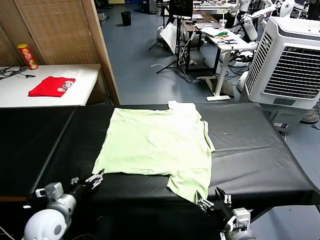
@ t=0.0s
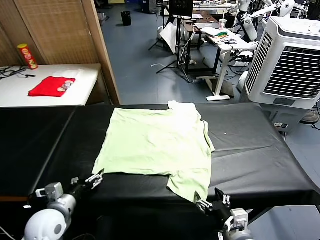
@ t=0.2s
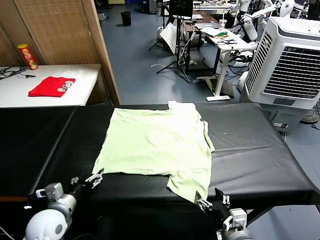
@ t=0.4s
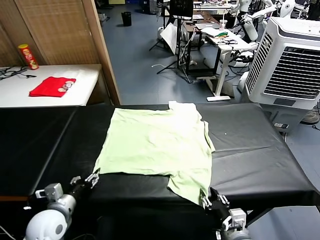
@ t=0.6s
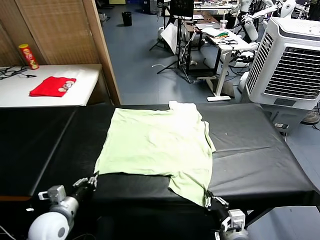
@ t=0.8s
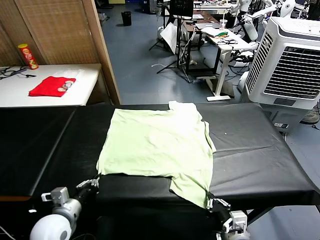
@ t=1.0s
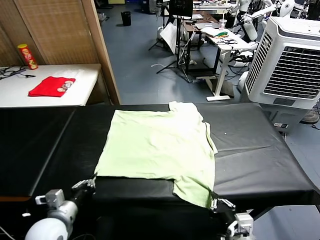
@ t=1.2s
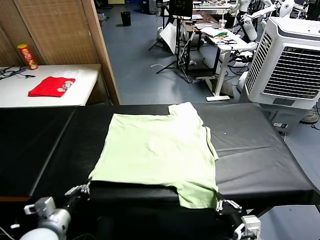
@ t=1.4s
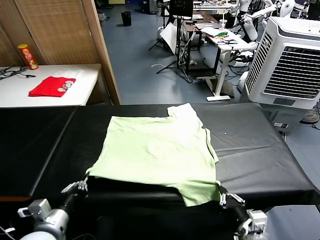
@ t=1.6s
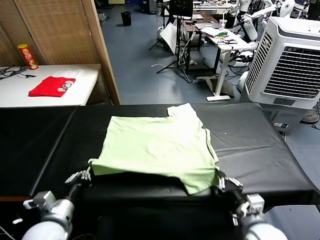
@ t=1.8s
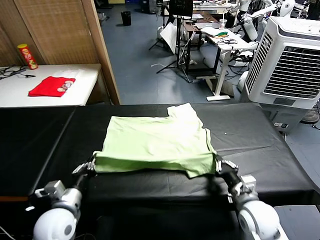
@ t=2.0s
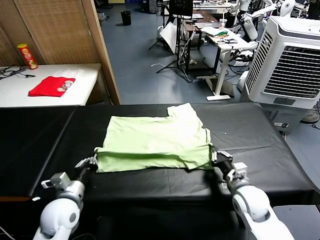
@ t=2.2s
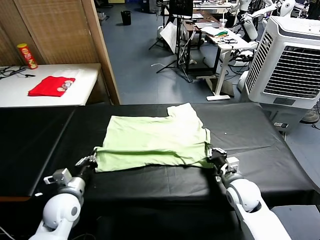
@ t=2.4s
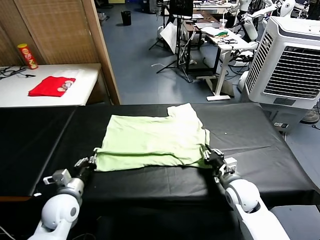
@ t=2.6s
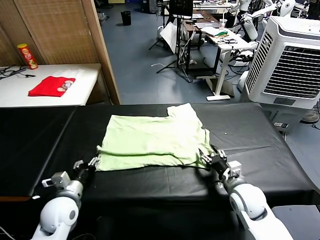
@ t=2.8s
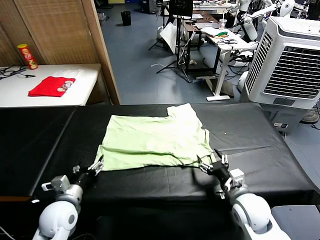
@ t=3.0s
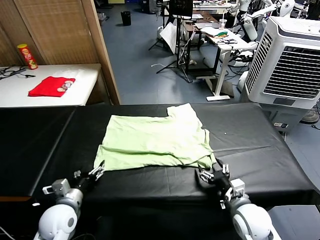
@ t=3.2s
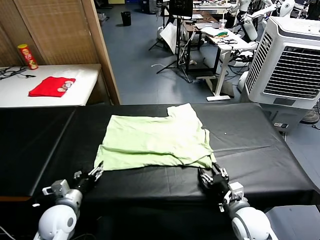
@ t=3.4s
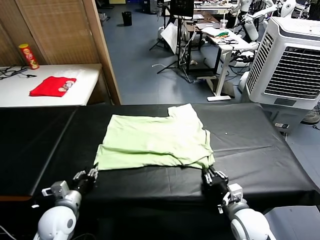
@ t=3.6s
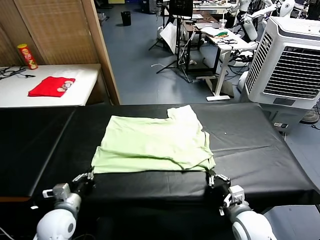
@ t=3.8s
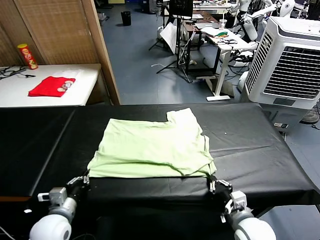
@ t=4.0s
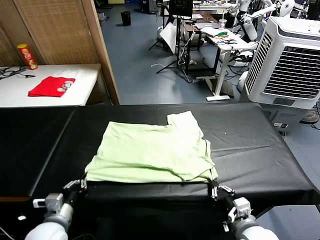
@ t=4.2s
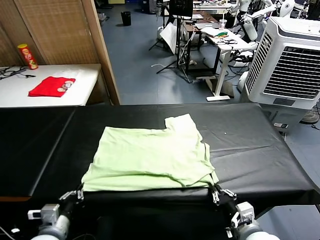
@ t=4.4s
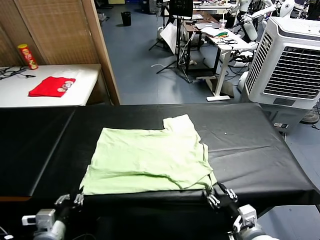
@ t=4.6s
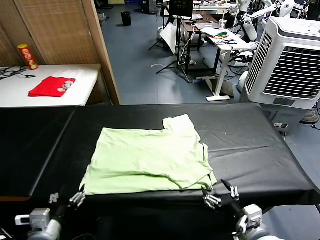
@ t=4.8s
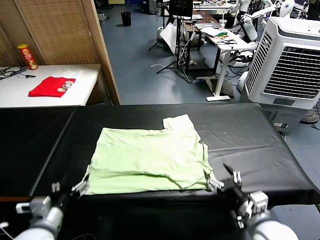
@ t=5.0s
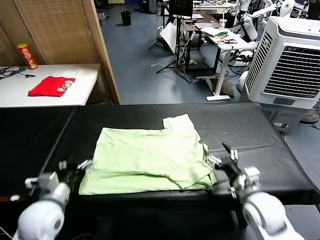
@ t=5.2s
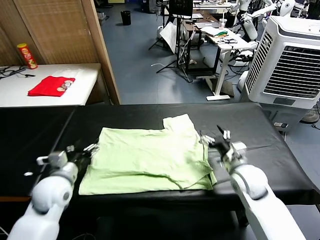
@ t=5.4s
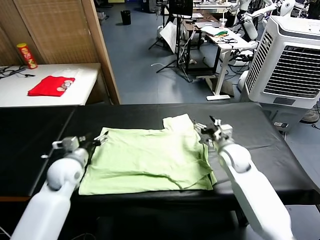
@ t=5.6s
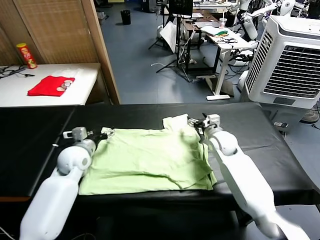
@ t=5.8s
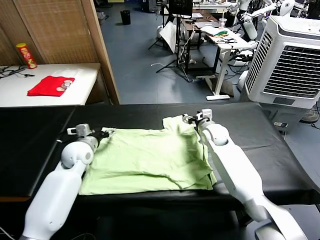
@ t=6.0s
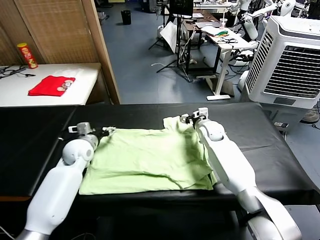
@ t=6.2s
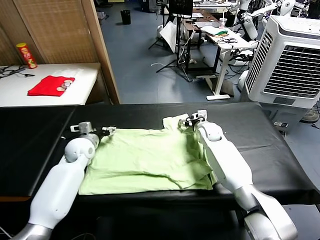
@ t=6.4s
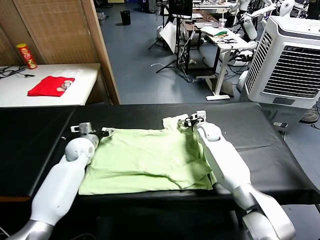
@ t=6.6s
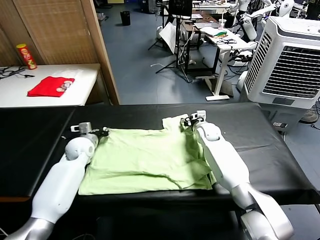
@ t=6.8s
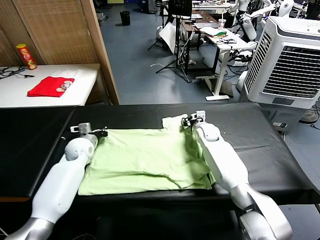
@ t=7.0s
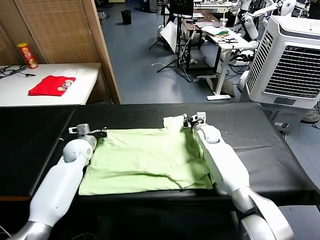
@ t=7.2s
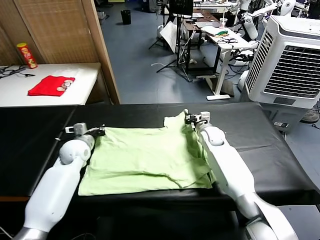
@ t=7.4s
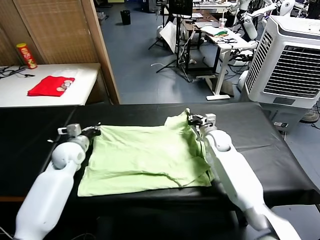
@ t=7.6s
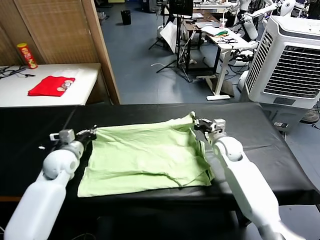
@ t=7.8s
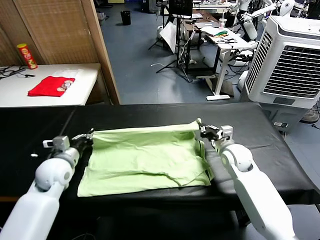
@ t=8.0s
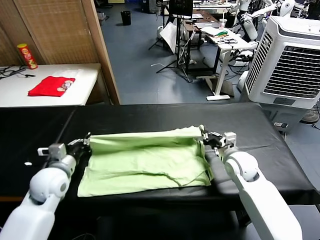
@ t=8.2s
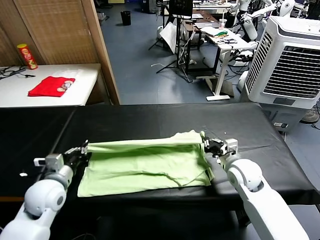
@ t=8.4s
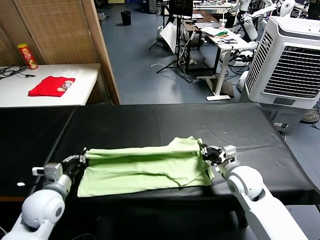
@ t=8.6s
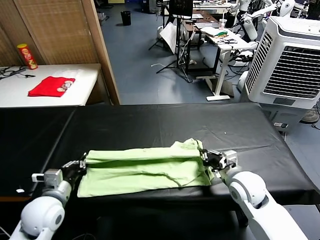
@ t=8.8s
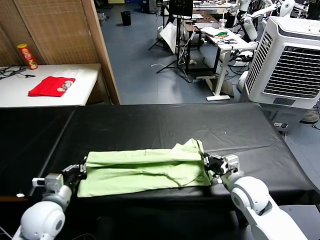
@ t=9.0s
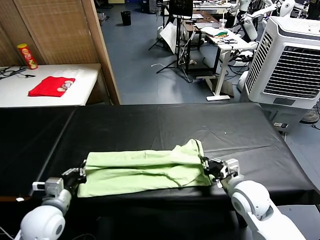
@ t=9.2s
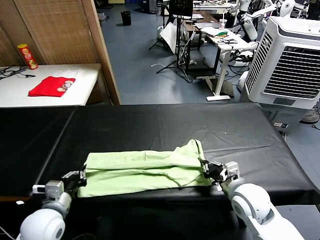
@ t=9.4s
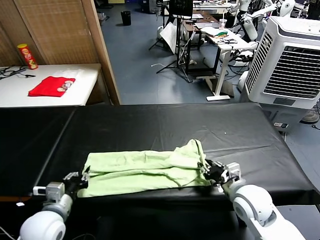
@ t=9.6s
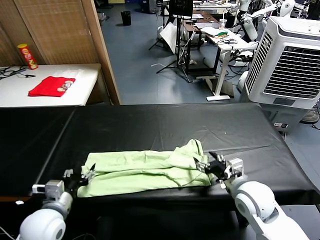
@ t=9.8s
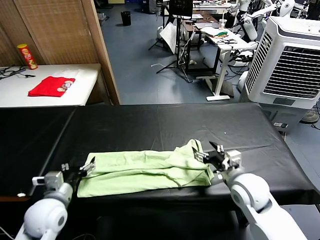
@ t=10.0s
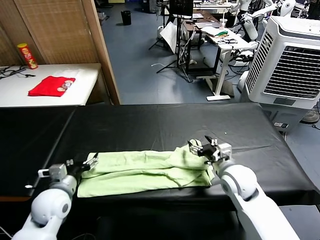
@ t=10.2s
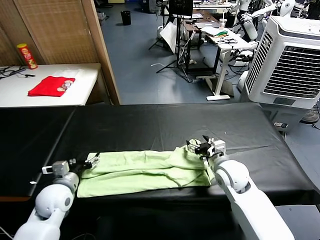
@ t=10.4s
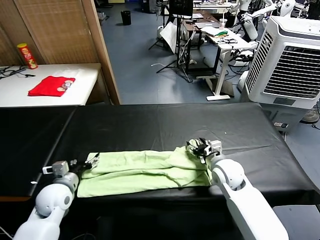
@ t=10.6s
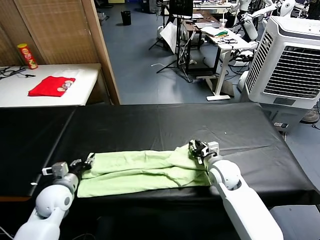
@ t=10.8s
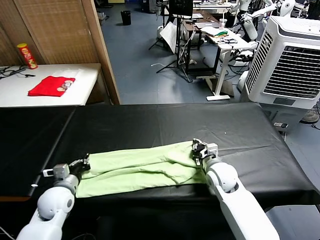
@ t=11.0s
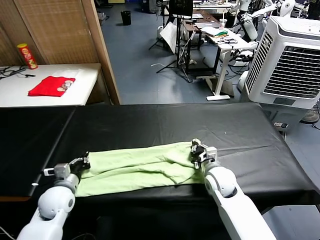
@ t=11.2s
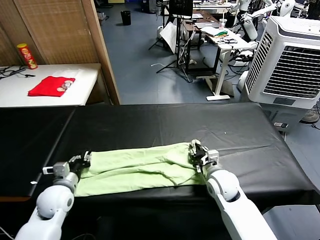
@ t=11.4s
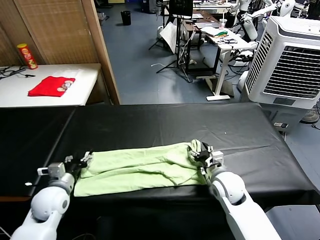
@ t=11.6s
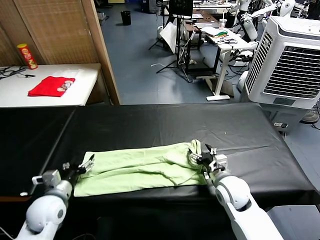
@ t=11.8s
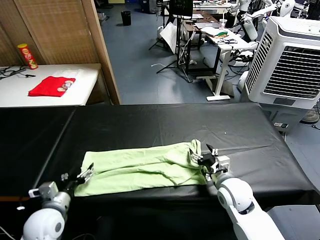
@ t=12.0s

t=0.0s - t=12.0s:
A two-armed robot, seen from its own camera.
Task of the whole recording: fold and organize the clothes.
Step, t=0.0s - t=1.0s: use both grippers simultaneously to clamp the lower edge of the clothing fabric.
Step, t=1.2s - t=2.8s: use both grippers to drag the lower edge of the fabric forward and fold it over the upper edge.
Step, t=3.0s - t=4.6s: Drag the clothes downward with both gripper.
Step, t=5.0s - t=7.0s: use both grippers simultaneously to clamp the upper edge of the clothing fabric.
Step, t=7.2s - t=9.8s: use both grippers to drag the upper edge of the fabric backward and fold it over the lower edge.
t=1.6s - t=3.0s: The left gripper heads forward and downward, covering some 10 cm, and opens. The right gripper is displaced forward by roughly 5 cm, and opens.
t=3.0s - t=4.4s: The two grippers go about 10 cm backward. The right gripper closes up, while the left gripper closes up.
t=4.4s - t=6.0s: Both grippers move forward, about 35 cm. The right gripper opens its fingers, while the left gripper opens its fingers.
t=6.0s - t=7.6s: The left gripper closes up, while the right gripper heads backward, covering about 5 cm, and closes.
t=7.6s - t=9.0s: Both grippers move backward, approximately 20 cm.
t=9.0s - t=10.4s: Both grippers move forward, about 5 cm. The right gripper opens up. The left gripper opens up.
t=10.4s - t=12.0s: Both grippers travel together backward, approximately 5 cm. The left gripper closes and opens again; the right gripper closes and opens again.

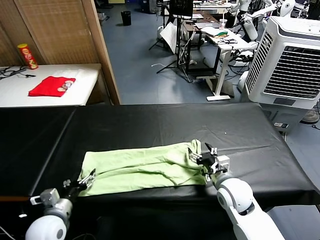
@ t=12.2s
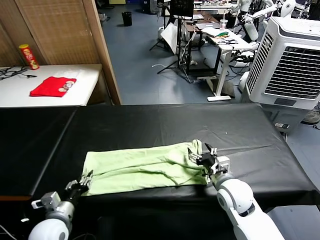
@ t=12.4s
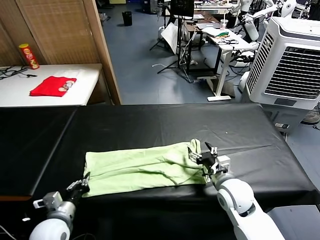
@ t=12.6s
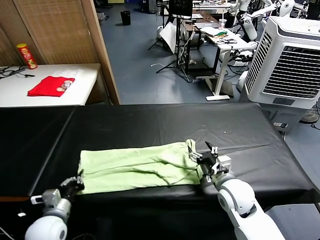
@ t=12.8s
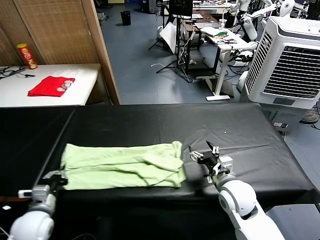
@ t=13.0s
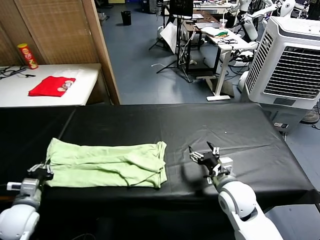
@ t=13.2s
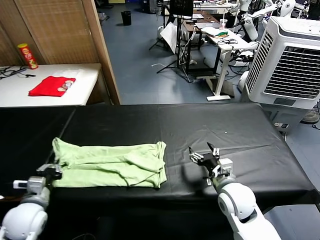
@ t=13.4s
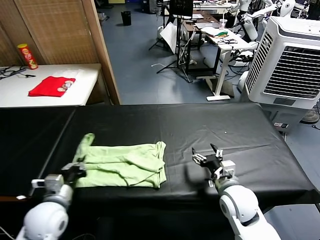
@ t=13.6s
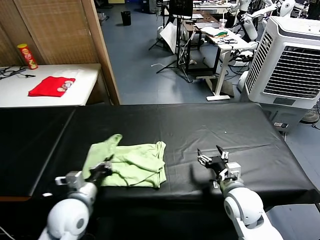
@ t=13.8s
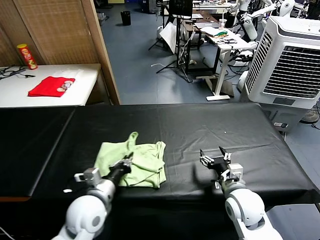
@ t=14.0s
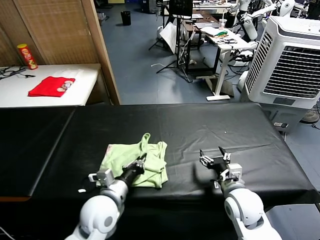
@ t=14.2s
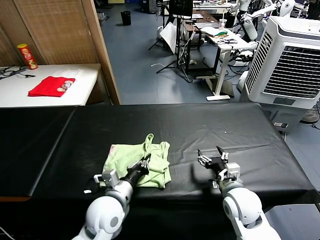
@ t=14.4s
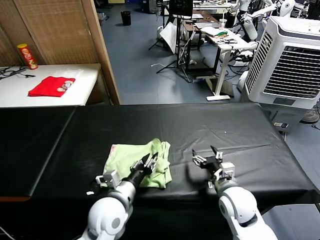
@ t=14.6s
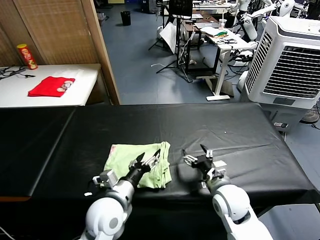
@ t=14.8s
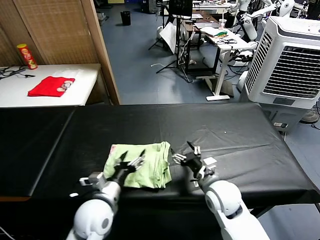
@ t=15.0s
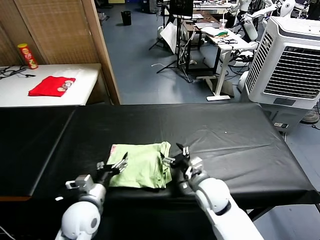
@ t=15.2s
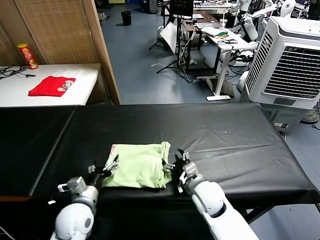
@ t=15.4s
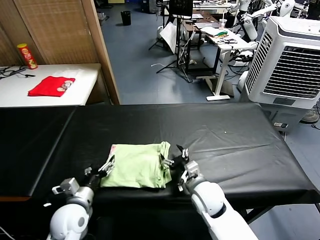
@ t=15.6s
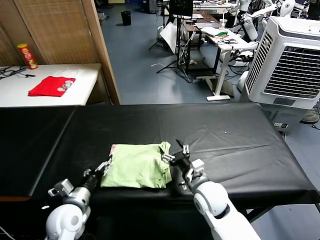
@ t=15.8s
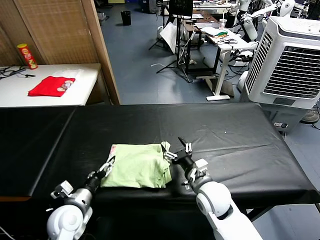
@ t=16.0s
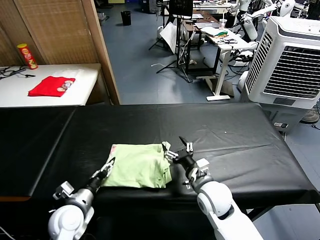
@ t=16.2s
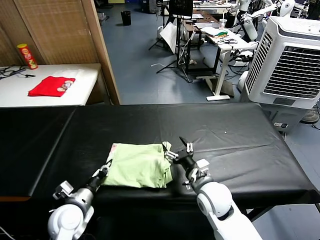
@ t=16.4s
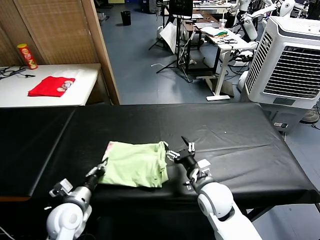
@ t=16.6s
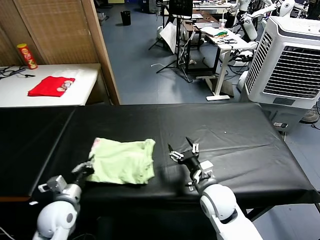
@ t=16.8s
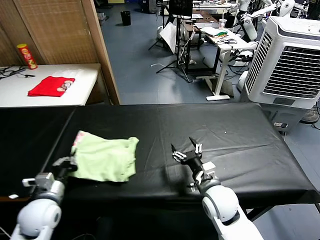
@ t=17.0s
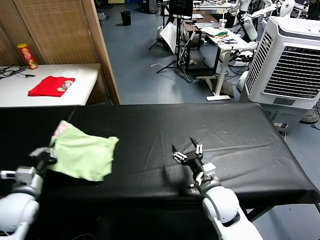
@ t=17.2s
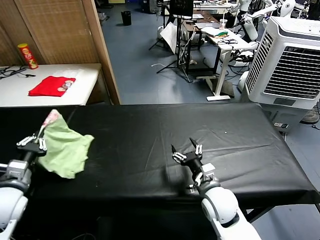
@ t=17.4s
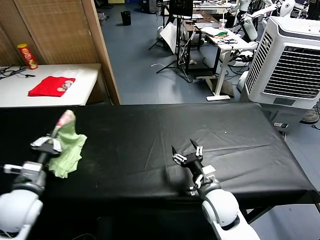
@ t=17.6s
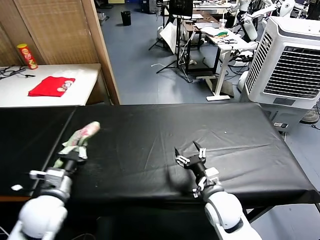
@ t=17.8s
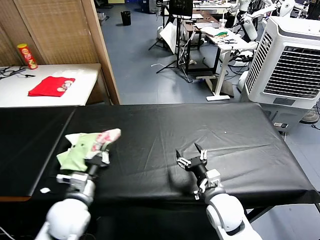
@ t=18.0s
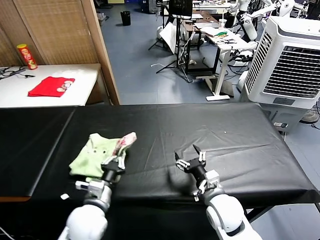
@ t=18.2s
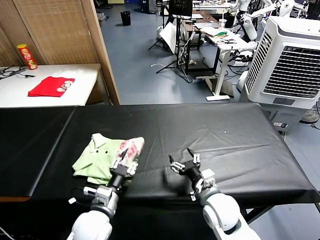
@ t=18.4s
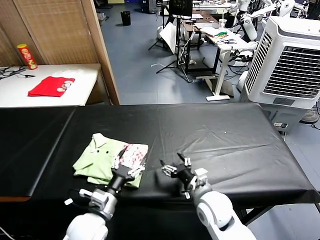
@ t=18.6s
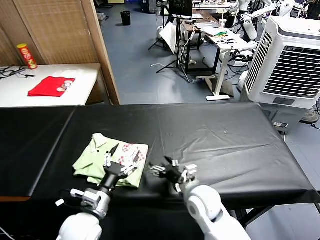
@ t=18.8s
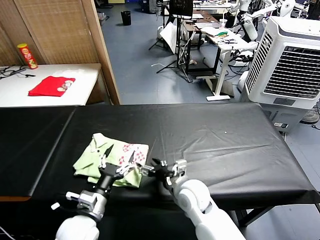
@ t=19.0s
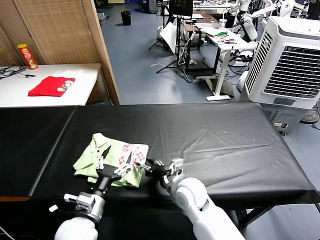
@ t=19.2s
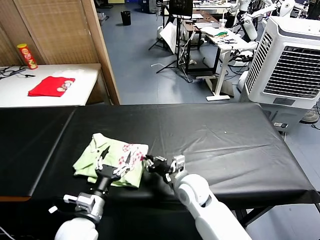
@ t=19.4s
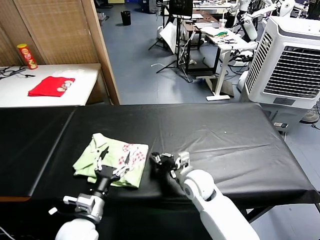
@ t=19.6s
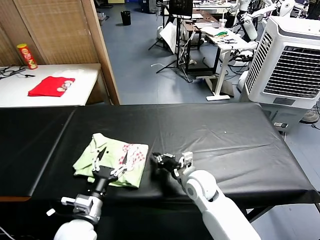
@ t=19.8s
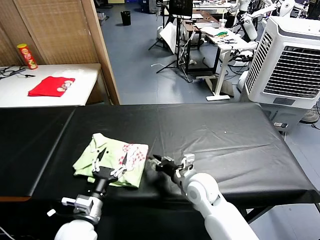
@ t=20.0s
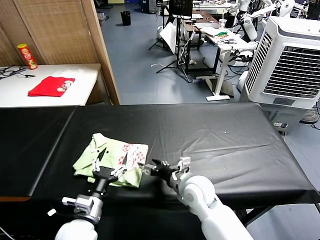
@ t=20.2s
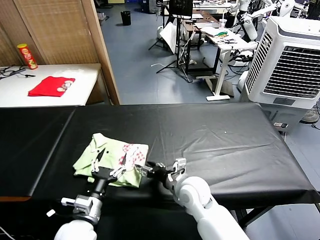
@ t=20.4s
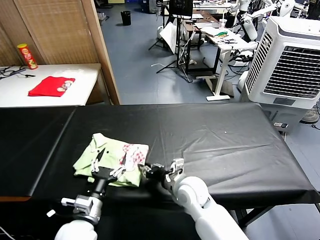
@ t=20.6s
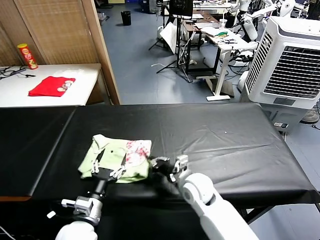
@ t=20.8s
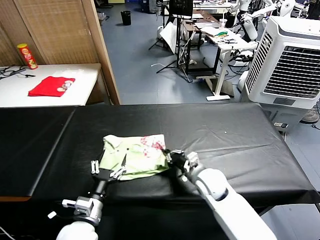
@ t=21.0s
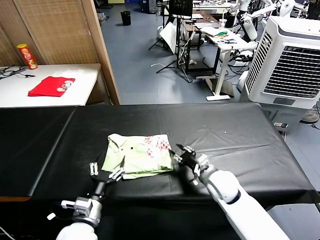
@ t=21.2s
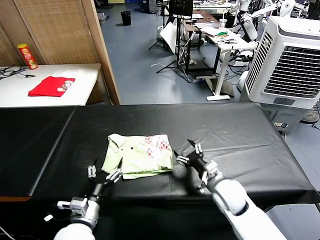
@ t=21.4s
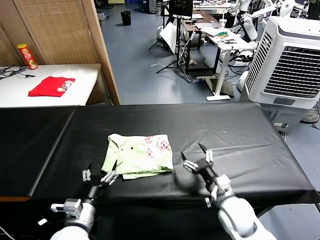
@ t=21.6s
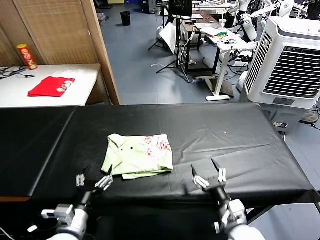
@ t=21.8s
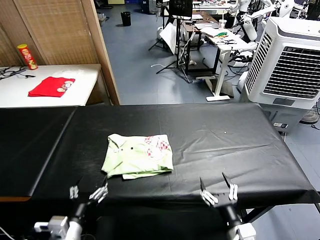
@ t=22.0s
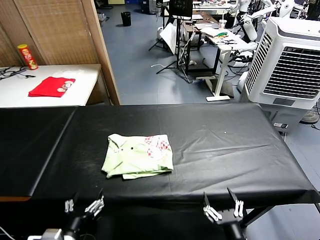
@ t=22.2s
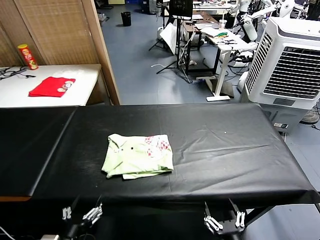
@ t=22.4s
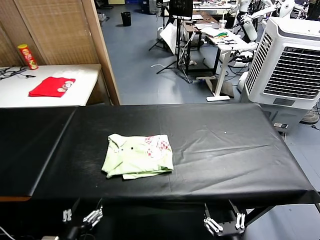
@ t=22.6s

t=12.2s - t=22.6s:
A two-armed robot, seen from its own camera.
Task of the whole recording: fold and organize the clothes.
Step, t=12.8s - t=14.6s: use the left gripper to drag the left edge of the fabric to the left and folds it over the right edge.
Step, t=15.0s - t=18.4s: Flip the folded clothes over with left gripper.
Step, t=18.6s - t=21.2s: Drag the clothes to the center of the table.
t=12.2s - t=13.6s: The left gripper heads upward, covering approximately 5 cm, reaches approximately 10 cm to the left, then returns, and closes up.
t=13.6s - t=15.2s: The right gripper heads to the left, covering about 5 cm, while the left gripper is displaced to the right by approximately 10 cm, and opens up.
t=15.2s - t=16.6s: The left gripper shifts some 5 cm to the left, and closes its fingers.
t=16.6s - t=18.2s: The left gripper heads to the right, covering some 10 cm.
t=18.2s - t=19.6s: The right gripper travels forward and to the left by about 10 cm, and closes its fingers. The left gripper opens its fingers.
t=19.6s - t=21.2s: The right gripper heads to the right, covering roughly 10 cm, and opens, then closes once more.
t=21.2s - t=22.6s: The right gripper moves backward, approximately 30 cm, and opens up. The left gripper shifts about 10 cm backward.
